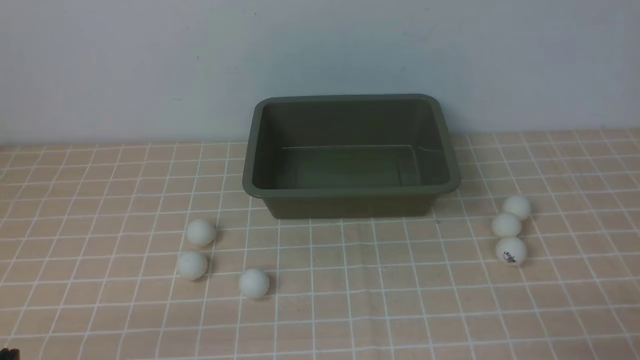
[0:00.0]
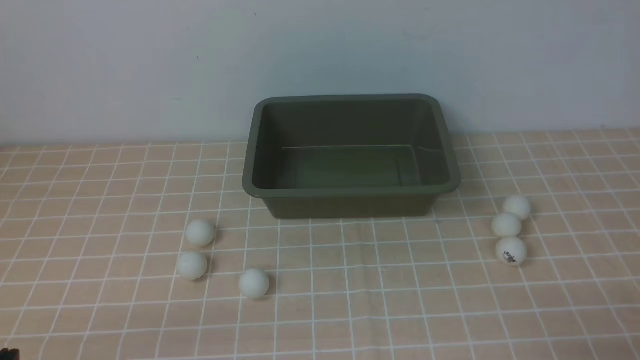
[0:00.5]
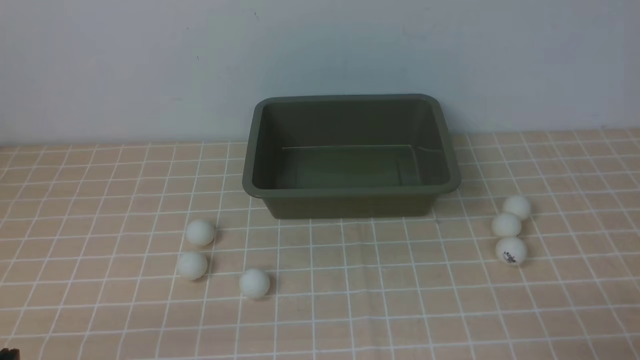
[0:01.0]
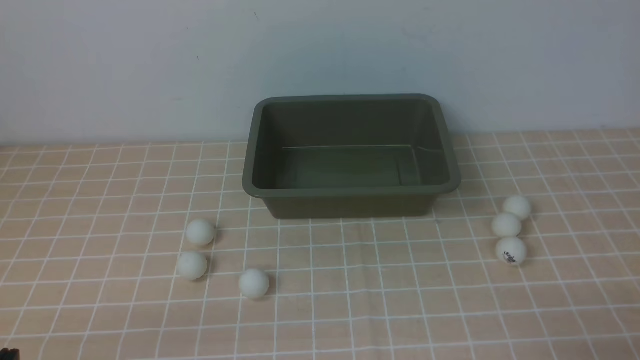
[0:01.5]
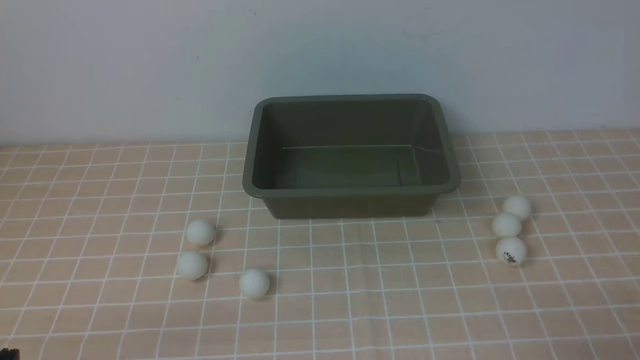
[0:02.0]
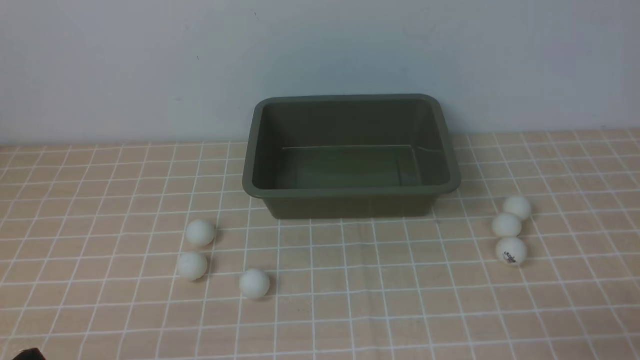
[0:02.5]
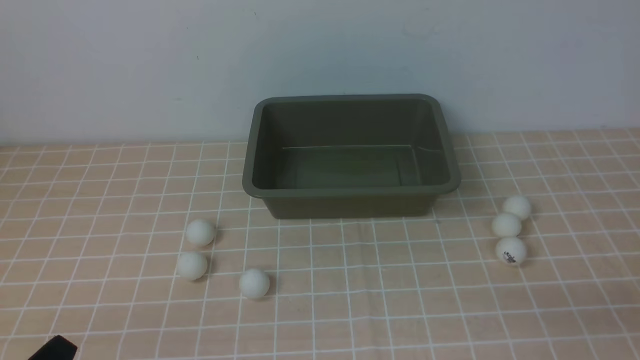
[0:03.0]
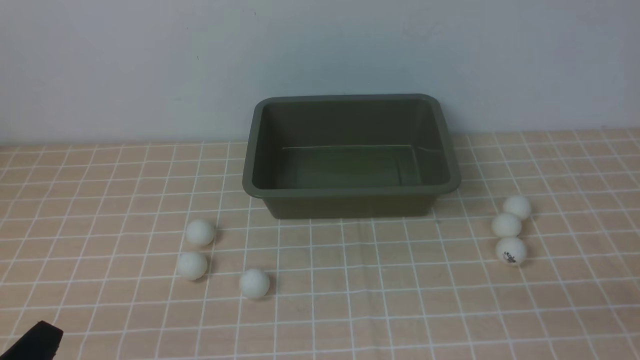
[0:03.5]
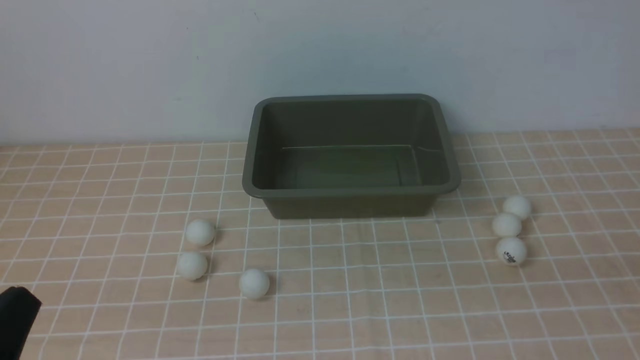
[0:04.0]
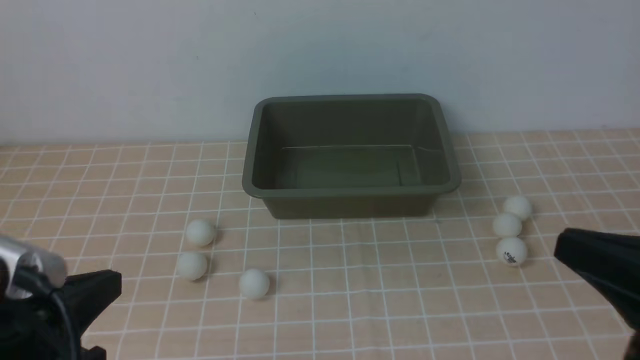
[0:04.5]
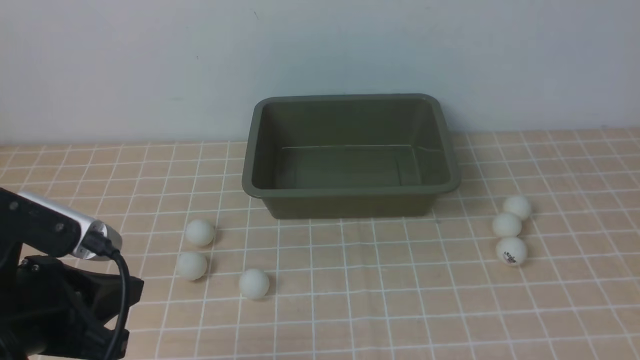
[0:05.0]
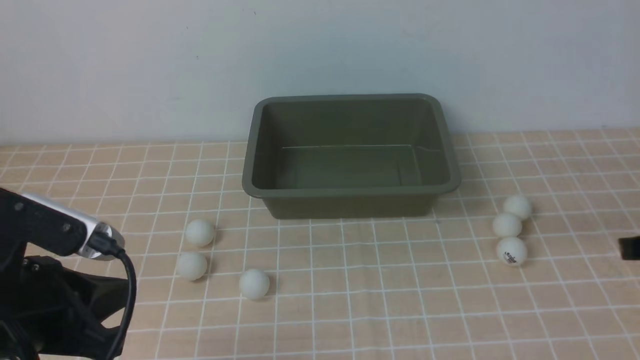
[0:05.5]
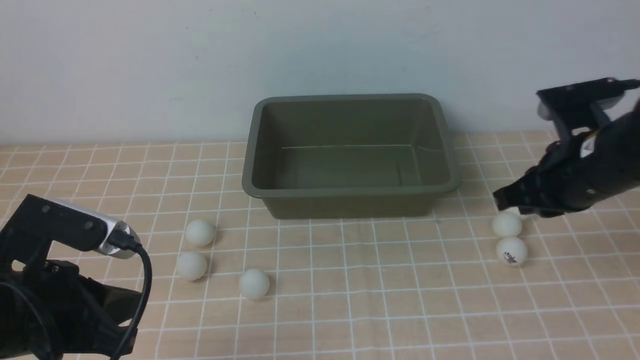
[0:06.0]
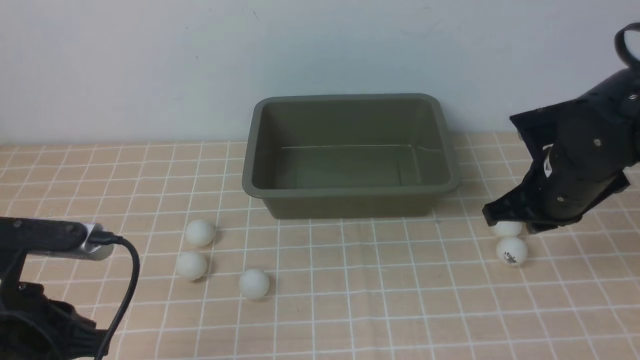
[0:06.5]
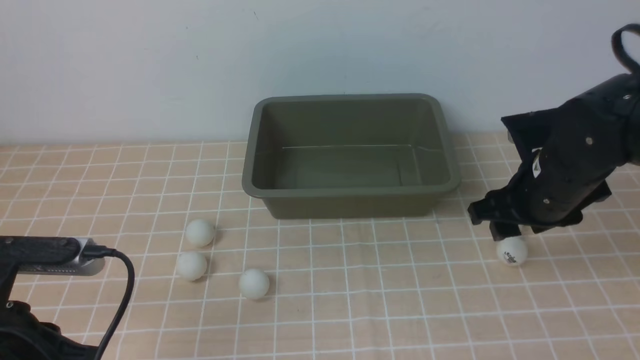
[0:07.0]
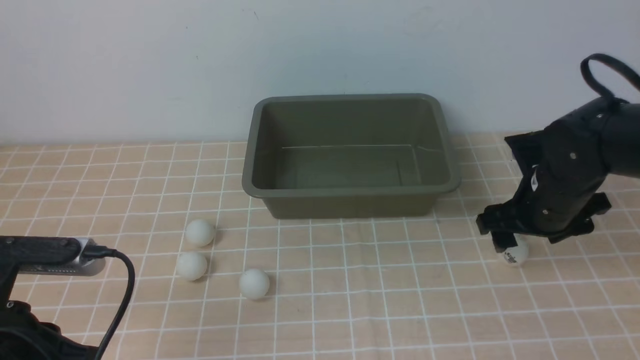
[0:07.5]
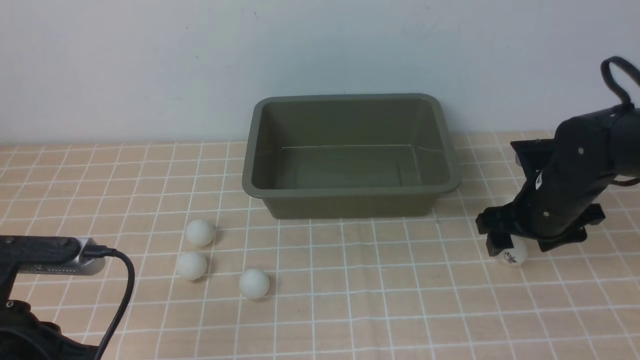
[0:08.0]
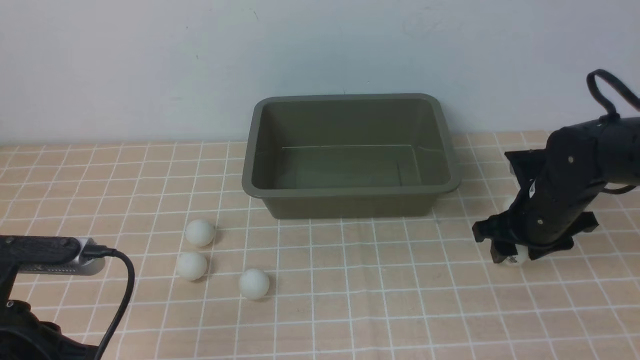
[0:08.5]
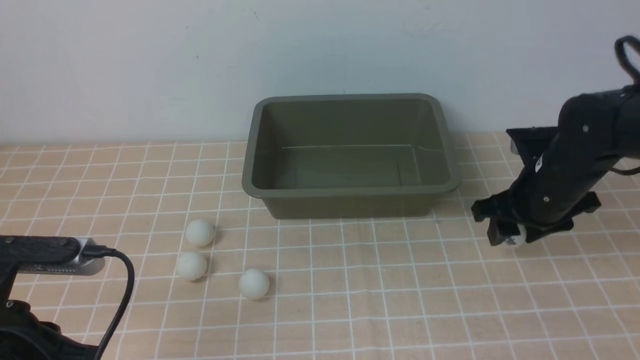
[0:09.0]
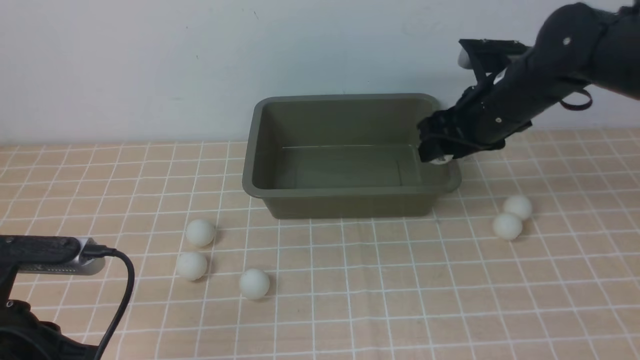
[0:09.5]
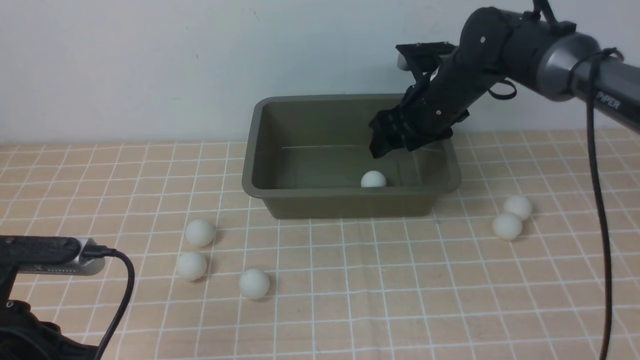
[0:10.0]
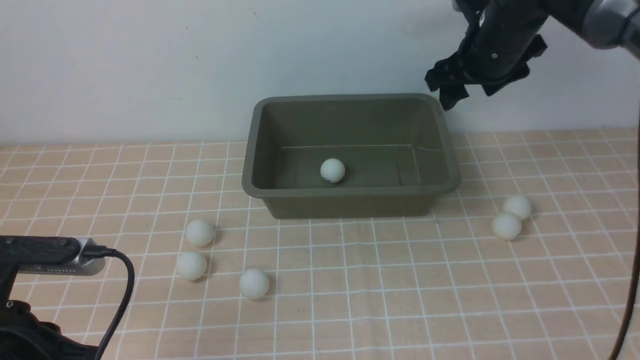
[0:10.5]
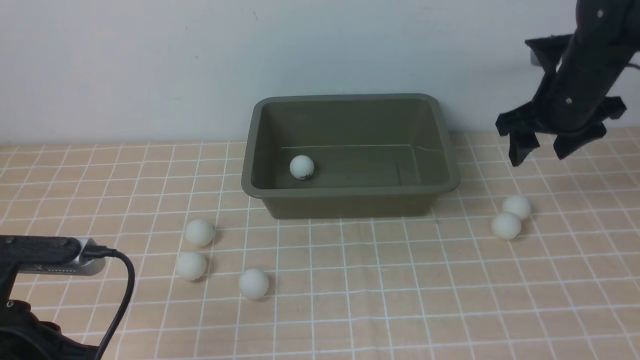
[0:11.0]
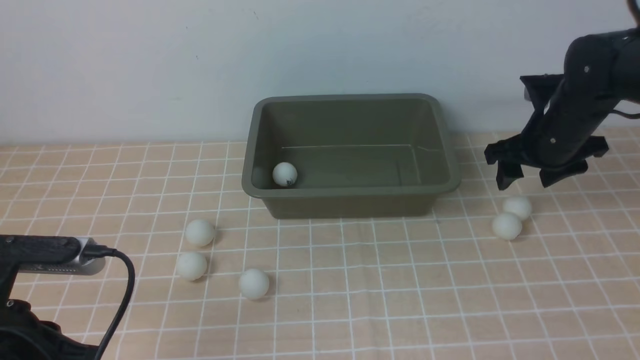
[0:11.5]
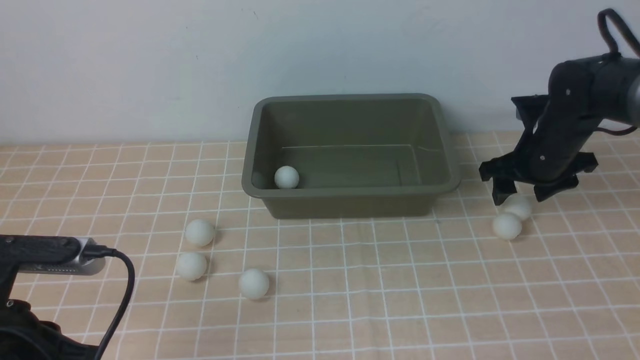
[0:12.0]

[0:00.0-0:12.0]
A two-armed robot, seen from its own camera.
Step, 0:00.0 to 0:09.0: use the right arm to clamp the table tennis ball closest to it.
Step, 0:09.5 to 0:10.0: use the right arm to put the table tennis ball into the box.
0:02.0 to 0:04.0: The left gripper moves upward, roughly 5 cm.
0:04.0 to 0:06.0: The left gripper moves forward, about 10 cm. Meanwhile the right gripper is displaced forward by about 25 cm.
0:06.0 to 0:08.0: The right gripper shifts about 10 cm downward and forward, and opens up.
0:08.0 to 0:10.0: The right gripper is displaced forward, to the left and upward by approximately 15 cm.
0:10.0 to 0:12.0: The right gripper heads to the right and downward, covering about 15 cm.

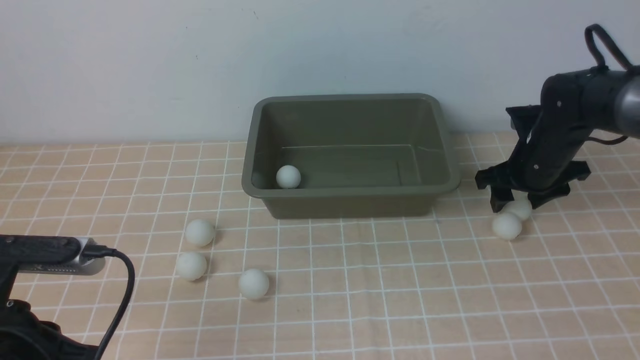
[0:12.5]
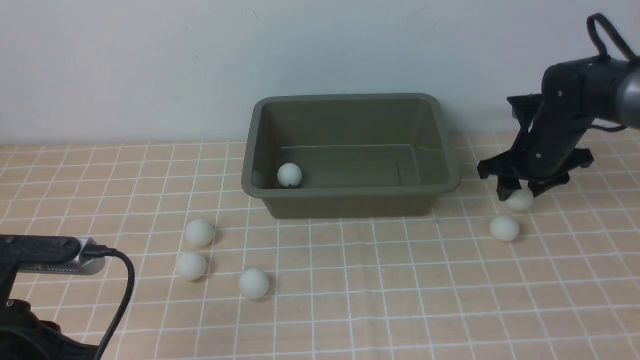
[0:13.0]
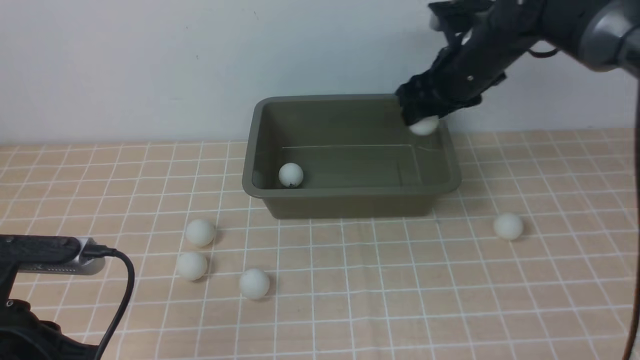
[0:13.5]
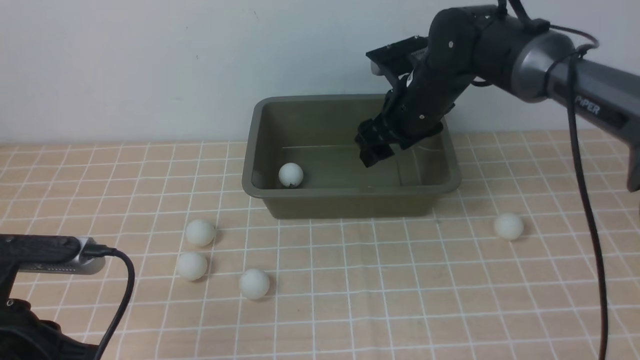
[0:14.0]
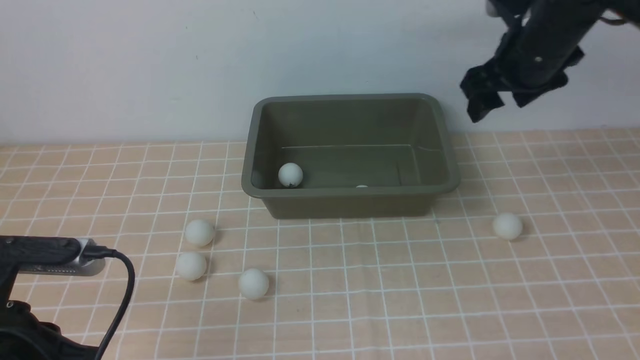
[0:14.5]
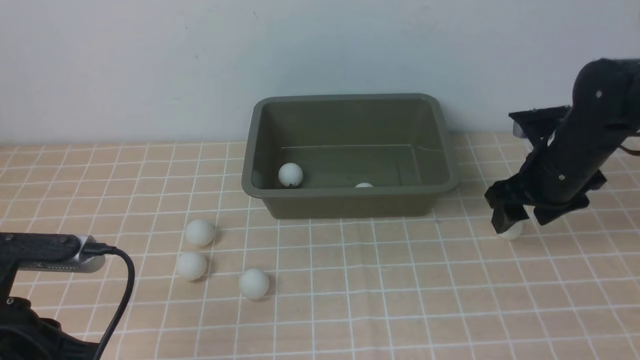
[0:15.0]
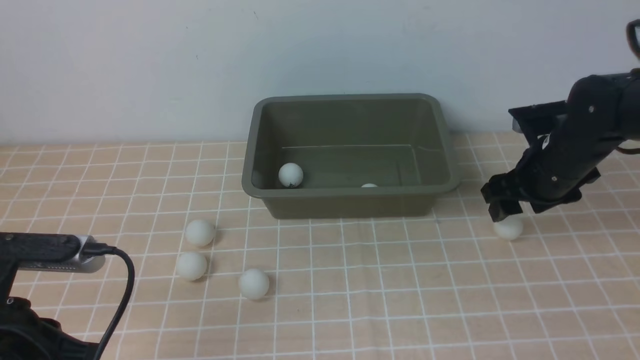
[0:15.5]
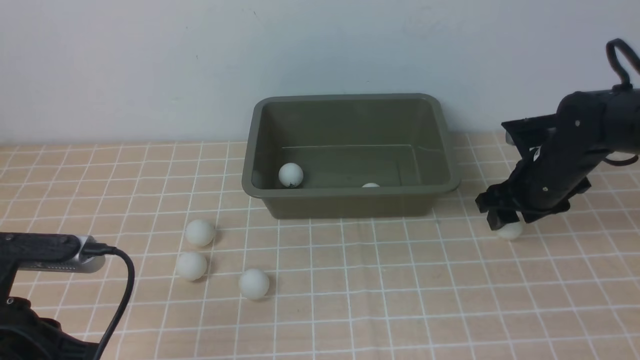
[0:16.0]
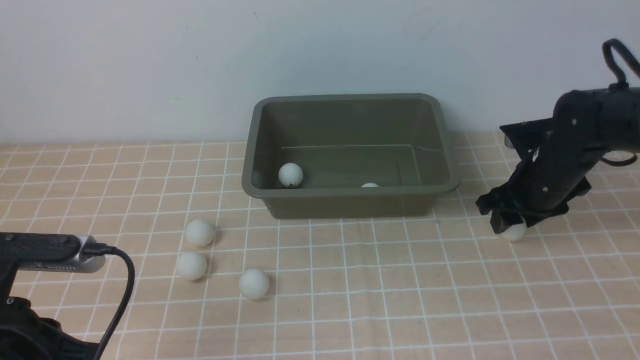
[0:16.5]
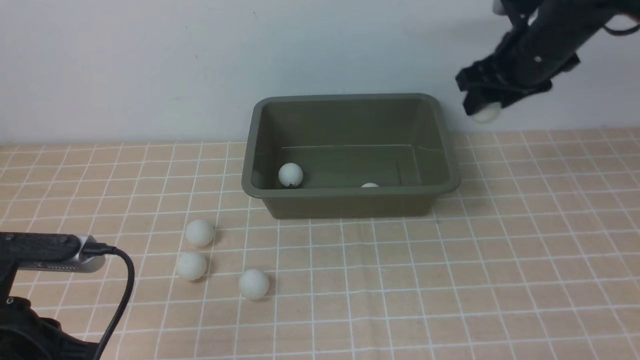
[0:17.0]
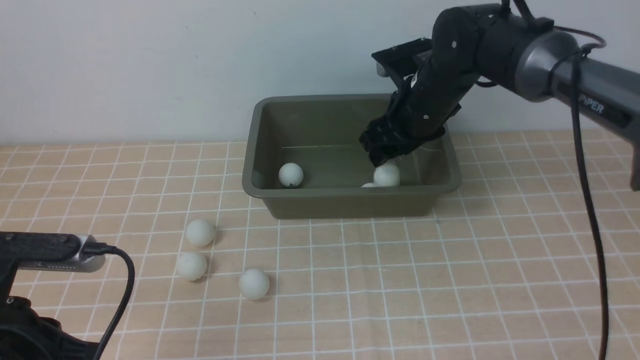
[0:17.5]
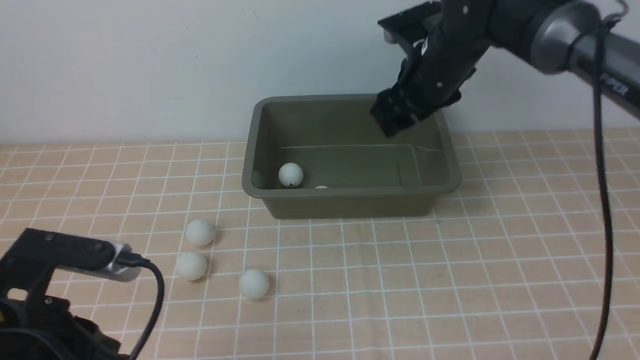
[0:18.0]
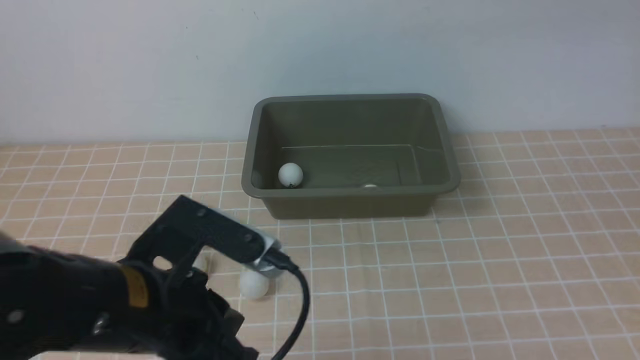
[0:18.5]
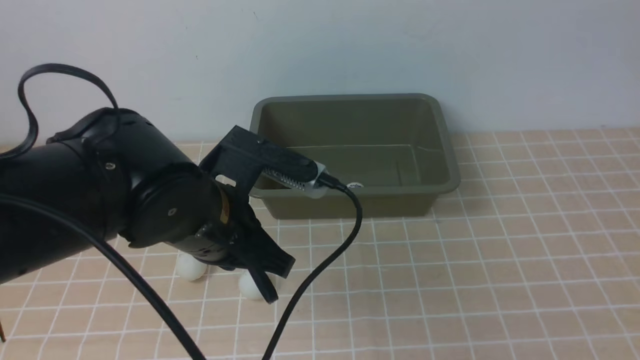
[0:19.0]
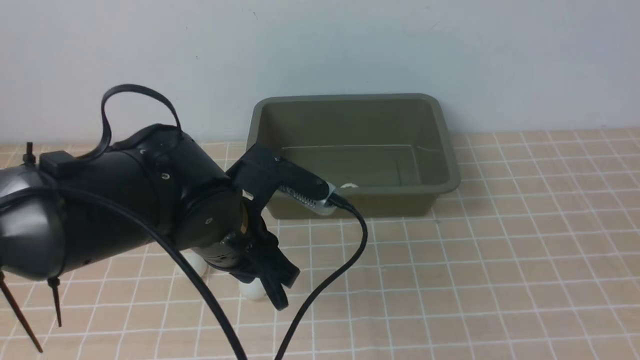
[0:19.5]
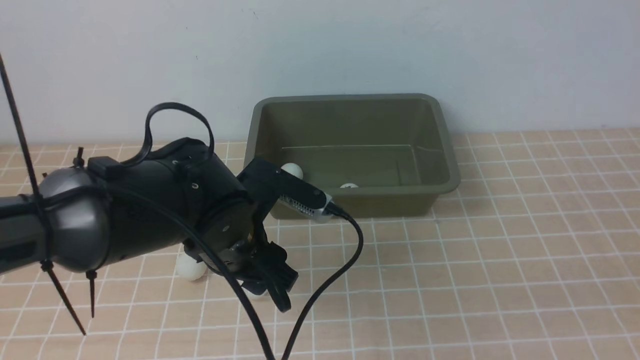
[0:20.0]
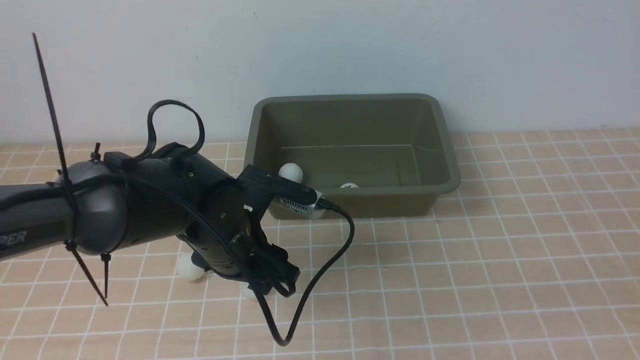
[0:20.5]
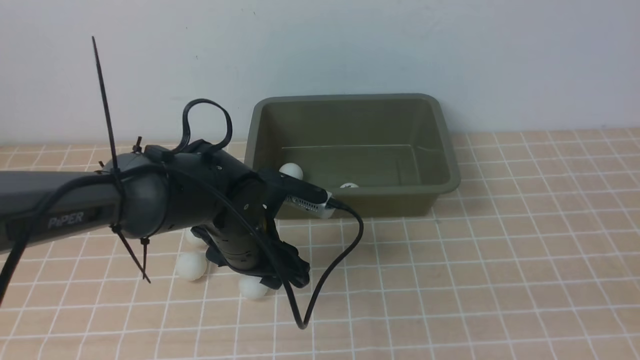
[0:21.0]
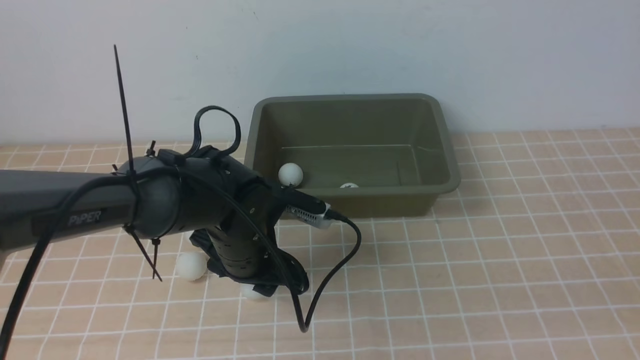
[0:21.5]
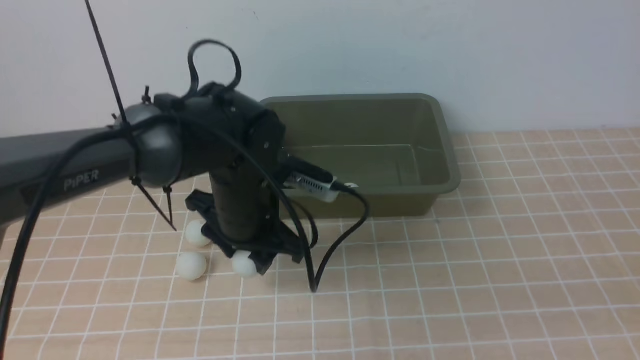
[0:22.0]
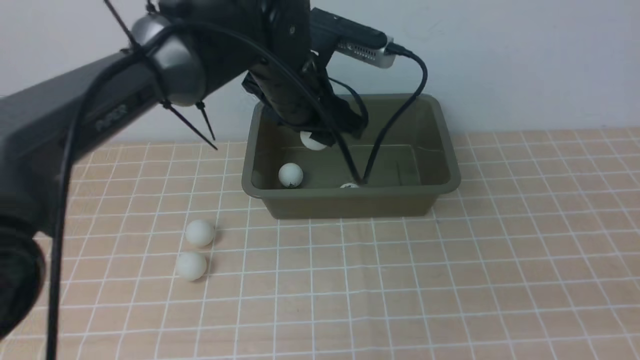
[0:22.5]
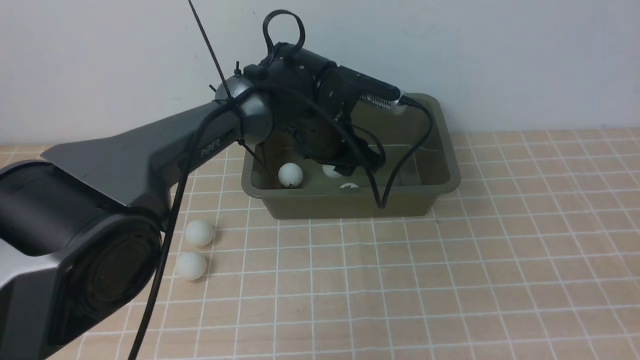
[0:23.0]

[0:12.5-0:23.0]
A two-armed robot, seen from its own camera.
Step, 0:13.5 to 0:14.0: use the right arm to put the table tennis ball into the box.
Step, 0:14.5 to 0:16.5: use the right arm to clamp the table tennis ball closest to it.
Step, 0:17.0 to 0:17.5: use the right arm to put the table tennis ball into the box.
Step, 0:18.0 to 0:21.5: use the left arm to clamp the table tennis ball closest to it.
0:12.5 to 0:14.5: The right gripper moves upward and to the left, some 15 cm.
0:14.5 to 0:16.5: The right gripper travels downward and to the right by about 15 cm.
0:16.5 to 0:19.0: The left gripper shifts some 20 cm to the right and forward, while the right gripper travels upward and backward by about 40 cm, and closes.
0:19.0 to 0:21.0: The left gripper is displaced downward and forward by roughly 10 cm, and opens up. The right gripper moves downward and backward, roughly 30 cm.
0:21.0 to 0:23.0: The left gripper goes approximately 15 cm forward, to the right and upward.
